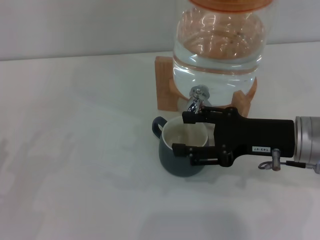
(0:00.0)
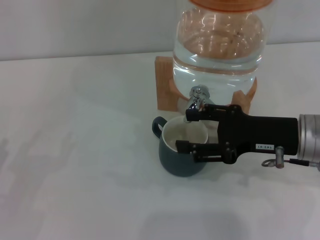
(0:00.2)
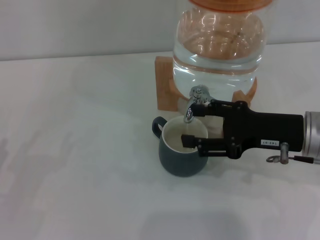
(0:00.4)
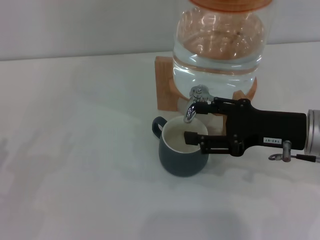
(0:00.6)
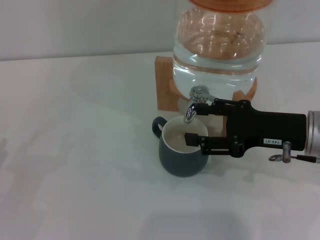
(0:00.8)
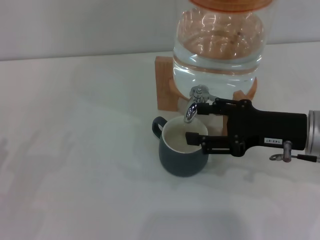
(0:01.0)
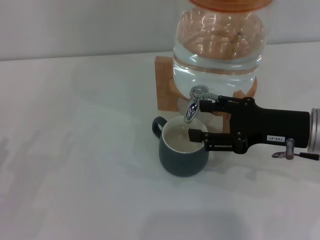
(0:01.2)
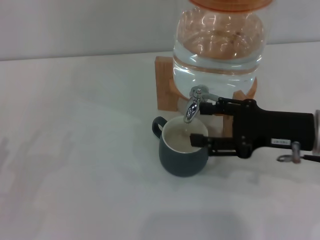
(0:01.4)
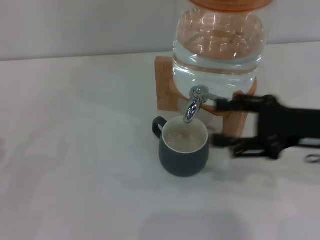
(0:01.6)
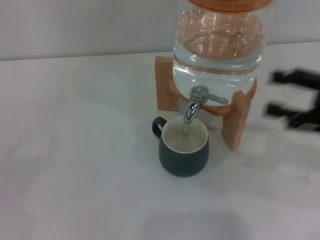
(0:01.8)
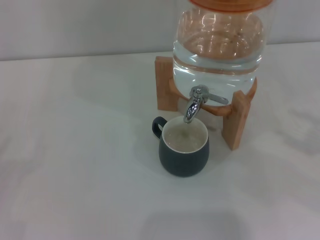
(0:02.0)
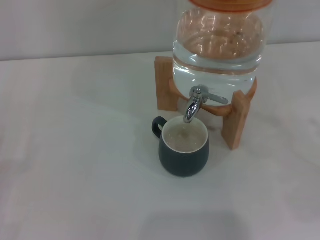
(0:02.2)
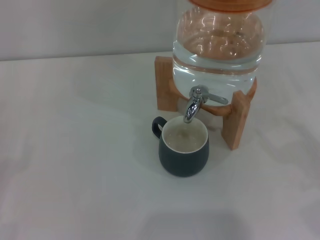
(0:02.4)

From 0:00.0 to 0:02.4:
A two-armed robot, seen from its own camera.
Task of the whole recording: the left gripper pick up the black cup and place it horizontally under the faucet, the right gripper turn on the faucet to fill the cup, and then turn off the faucet.
From 0:00.0 to 0:01.2: The grippers make only small movements.
From 0:01.2 to 0:02.4: The right gripper moves to the right and backward, approximately 20 cm.
